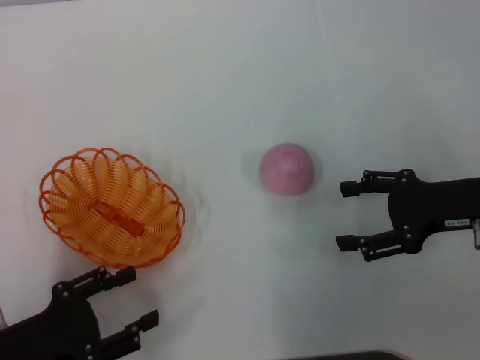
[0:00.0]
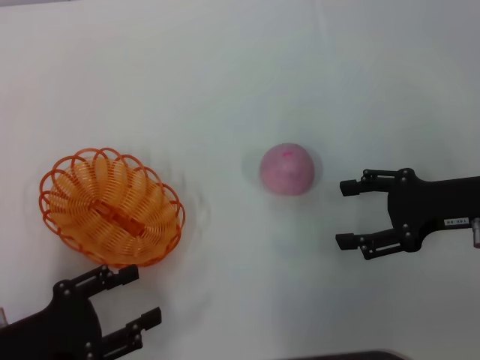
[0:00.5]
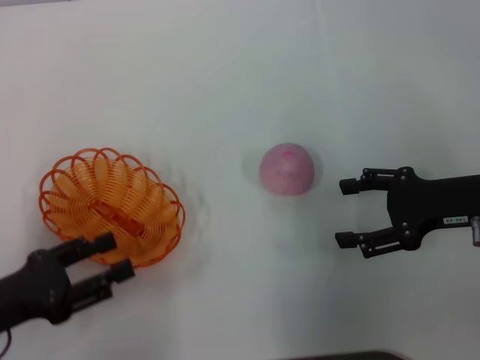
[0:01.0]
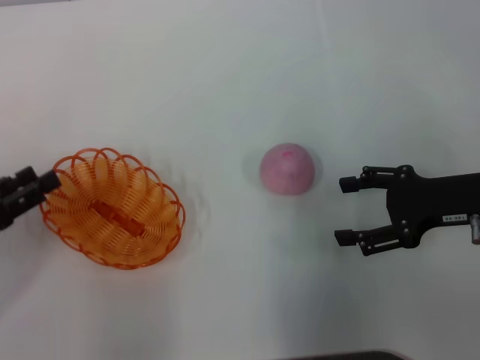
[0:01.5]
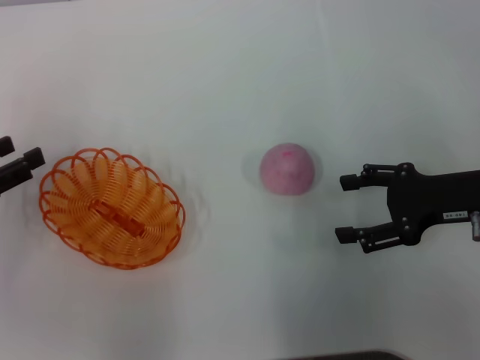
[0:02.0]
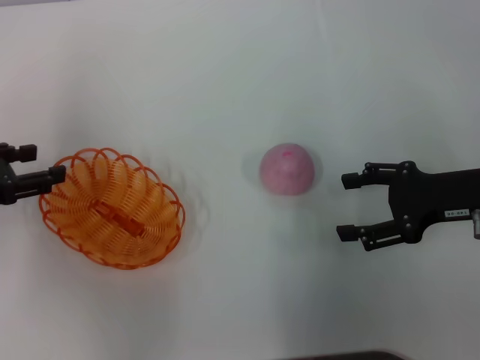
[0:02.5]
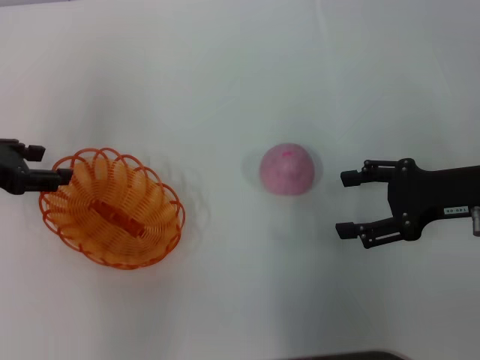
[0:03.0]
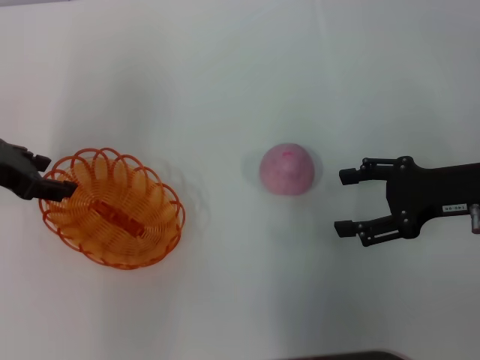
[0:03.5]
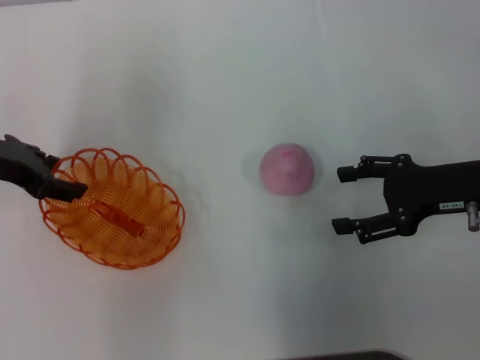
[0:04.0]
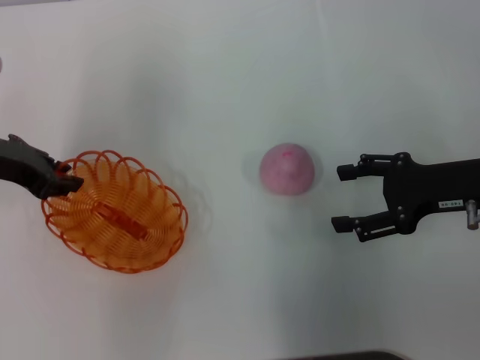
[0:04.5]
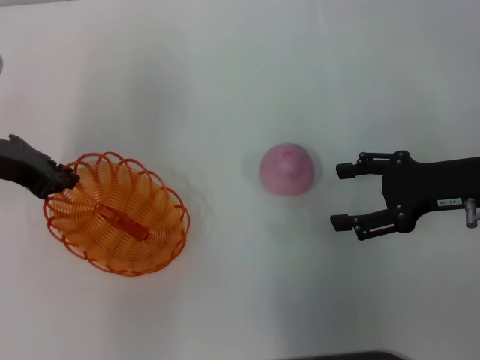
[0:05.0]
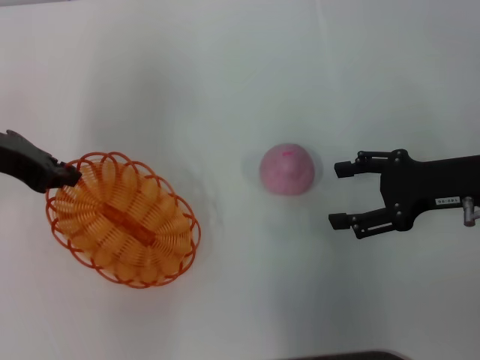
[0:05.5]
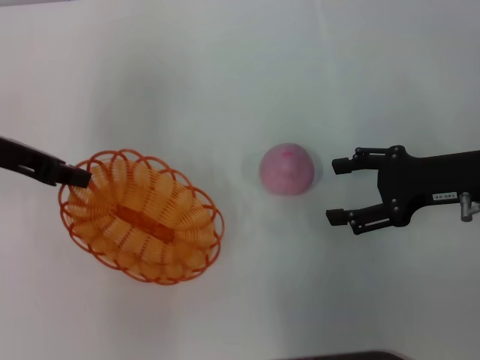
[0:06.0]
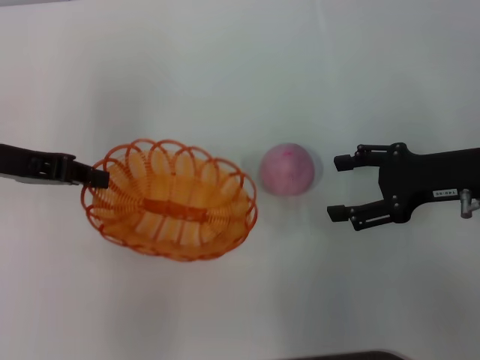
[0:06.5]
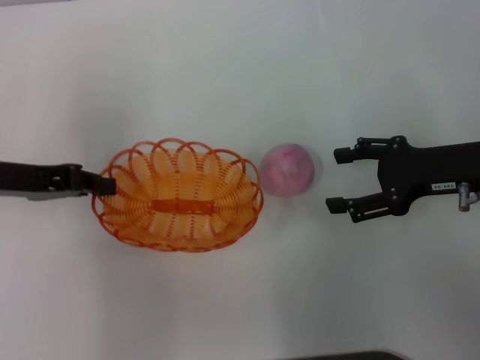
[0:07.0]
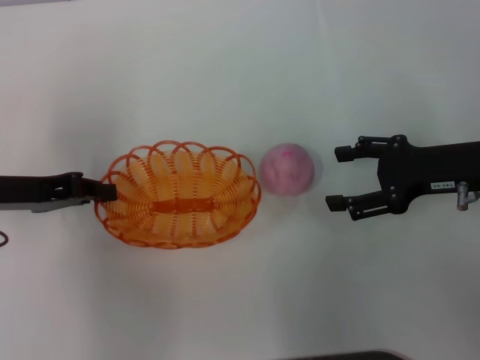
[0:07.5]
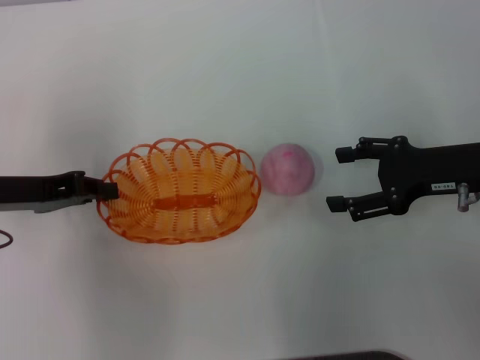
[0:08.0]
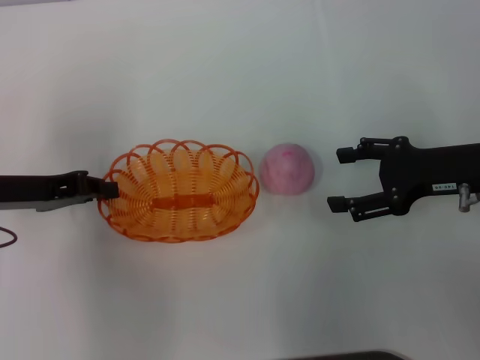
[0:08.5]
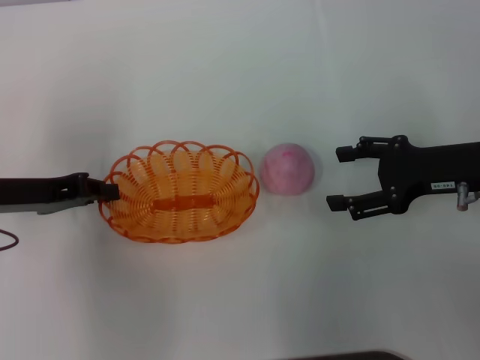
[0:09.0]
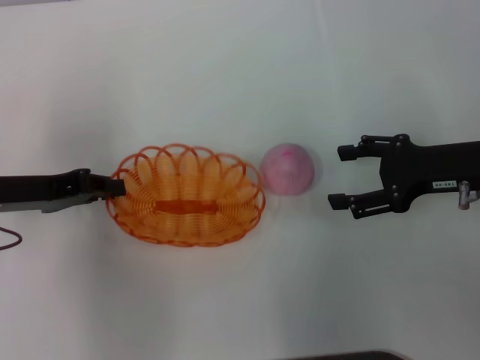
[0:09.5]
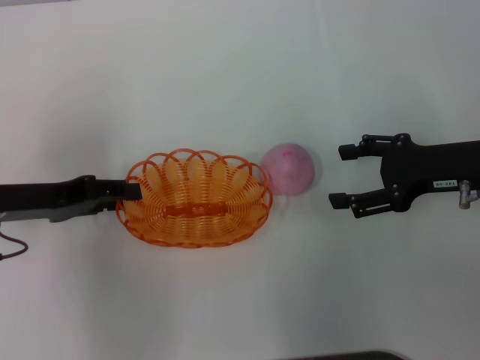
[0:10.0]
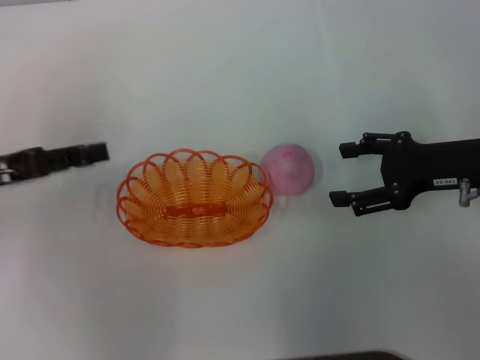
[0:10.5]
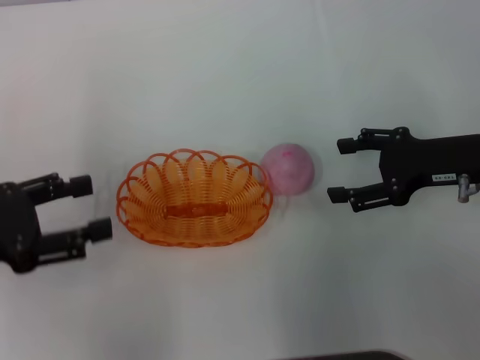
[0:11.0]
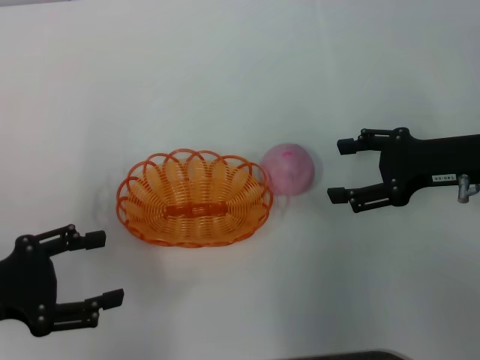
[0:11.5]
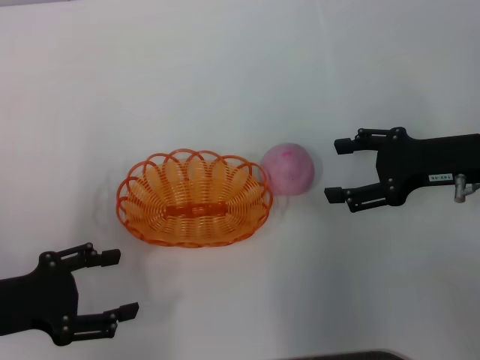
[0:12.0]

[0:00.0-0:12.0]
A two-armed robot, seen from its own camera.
Step, 0:00.0 to 0:05.5: Pick up the basket with the left gripper.
Step, 0:06.0 to 0:10.5: Place the basket in the center of view with the left gripper.
0:00.0 to 0:02.0: The left gripper travels forward, to the left and upward by approximately 15 cm.
0:02.0 to 0:04.0: The left gripper travels forward and to the right by some 10 cm.
0:04.0 to 0:06.0: The left gripper closes its fingers.
0:06.0 to 0:08.0: The left gripper shifts approximately 5 cm downward.
0:08.0 to 0:10.0: There are only small adjustments of the grippers.
0:10.0 to 0:12.0: The left gripper travels backward by about 10 cm, and opens.

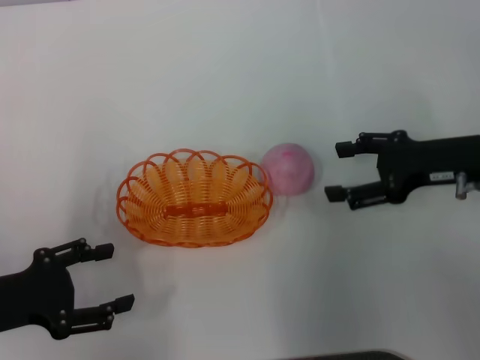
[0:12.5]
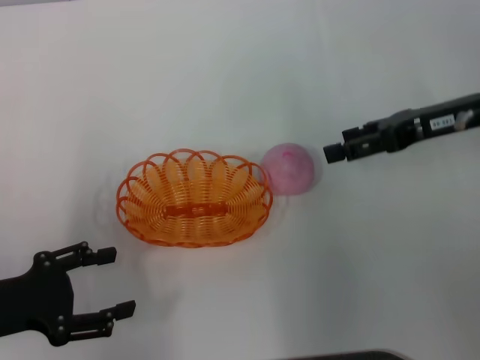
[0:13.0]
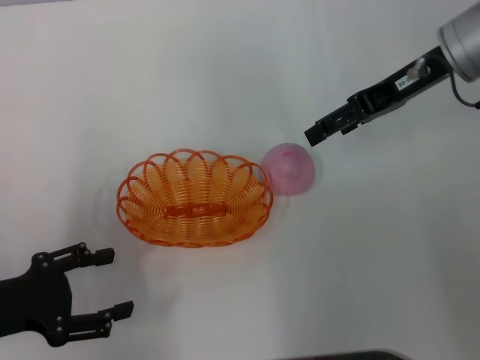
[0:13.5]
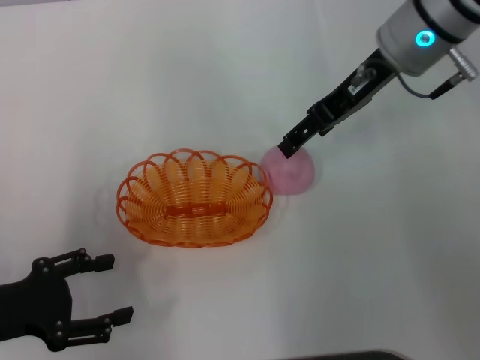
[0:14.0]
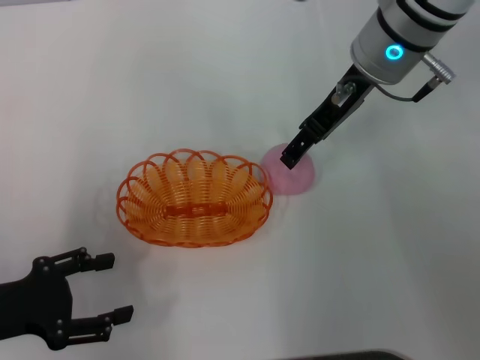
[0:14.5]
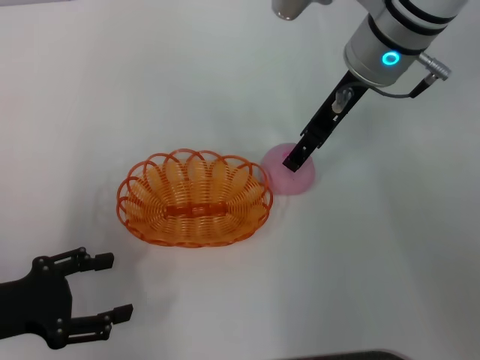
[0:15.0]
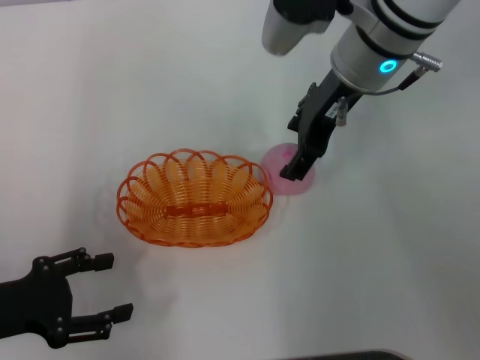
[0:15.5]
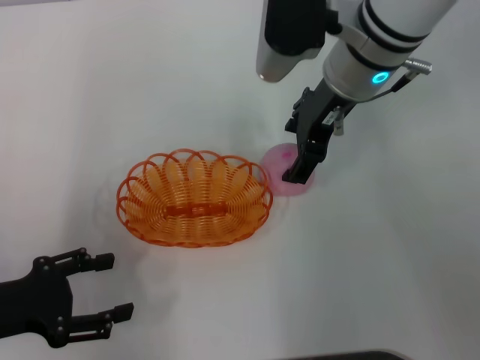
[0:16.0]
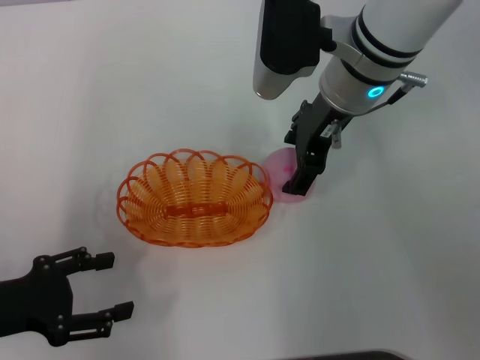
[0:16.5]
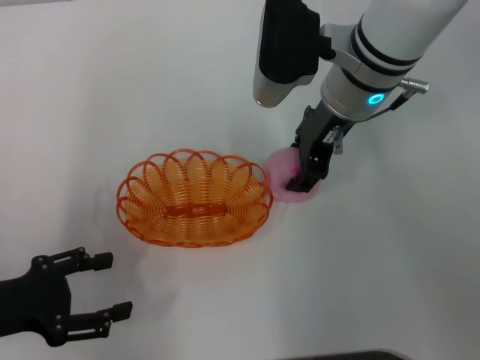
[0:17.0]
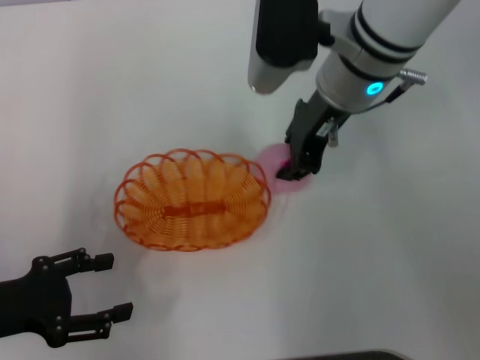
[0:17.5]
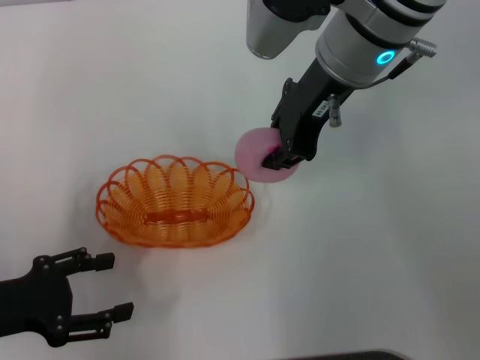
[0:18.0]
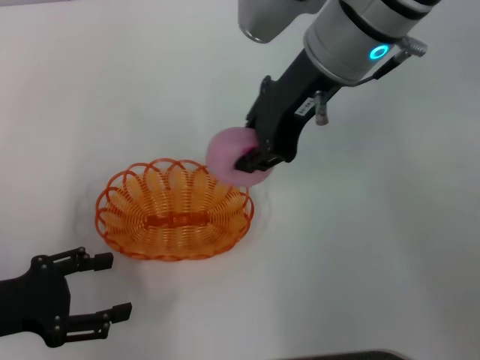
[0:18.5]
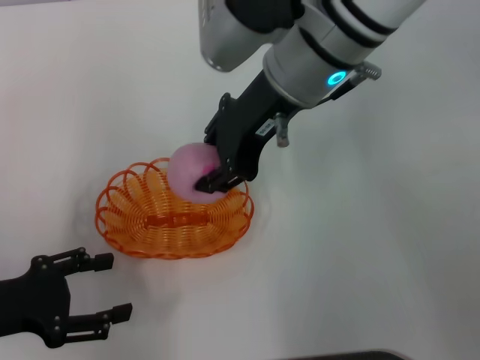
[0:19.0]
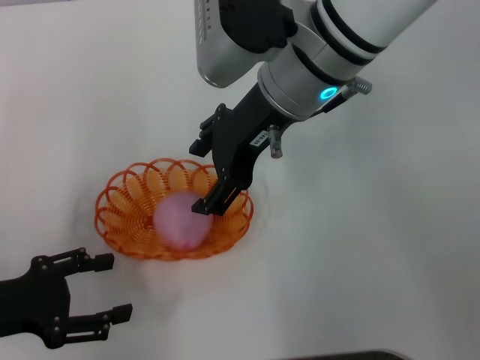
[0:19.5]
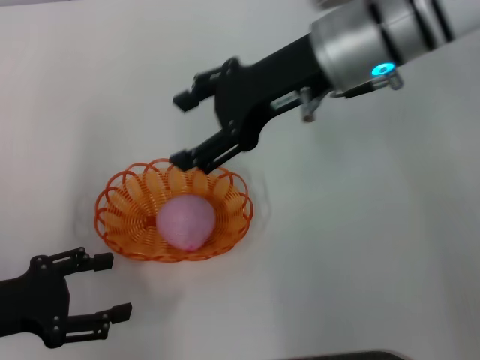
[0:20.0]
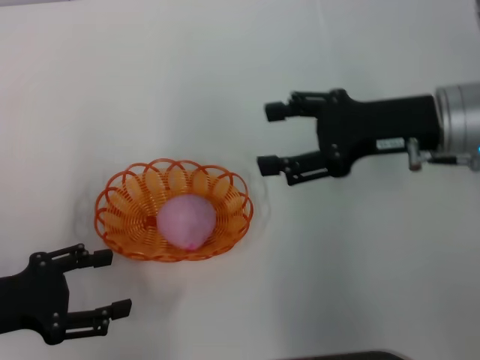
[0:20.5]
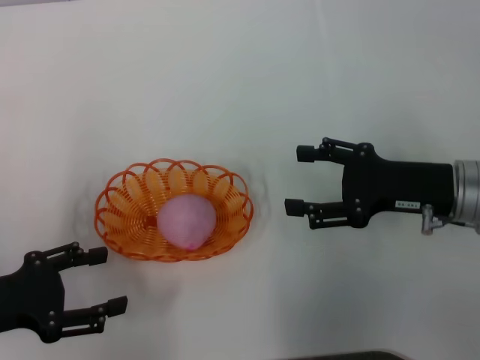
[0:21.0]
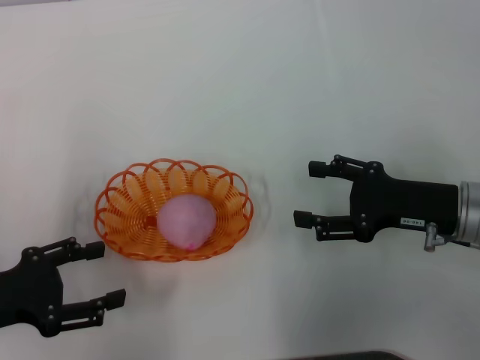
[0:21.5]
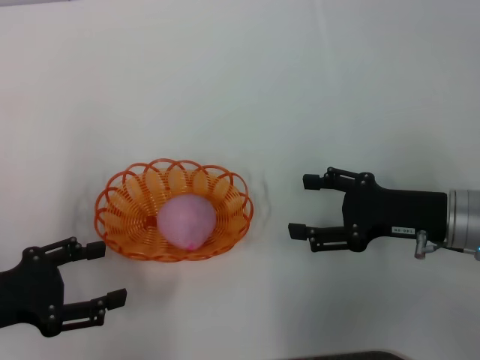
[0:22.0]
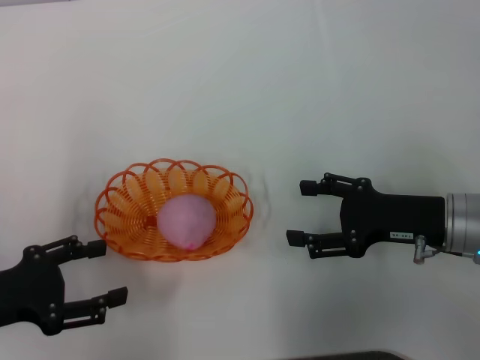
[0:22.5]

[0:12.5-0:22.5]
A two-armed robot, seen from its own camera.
Step, 0:12.5 to 0:18.0: Pick up the peach with the right gripper.
Step, 0:18.5 to 0:20.0: Place the peach into the basket with the right gripper.
0:12.5 to 0:14.5: The right gripper heads to the left, forward and upward, covering about 20 cm.
0:16.5 to 0:18.5: The right gripper heads upward, covering some 5 cm, and closes its fingers.
0:18.5 to 0:20.5: The right gripper moves to the right, downward and backward, about 15 cm, and opens up.
0:20.5 to 0:22.5: The right gripper goes approximately 10 cm downward and backward.
